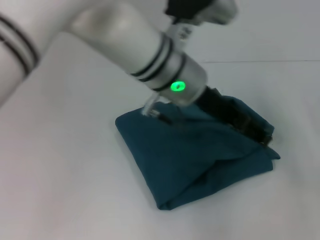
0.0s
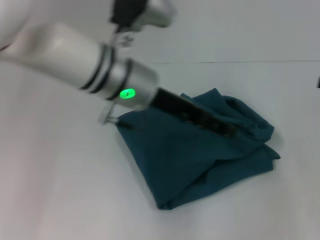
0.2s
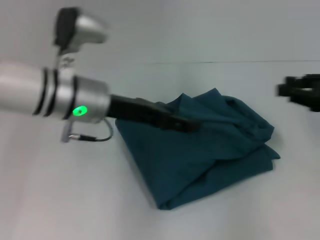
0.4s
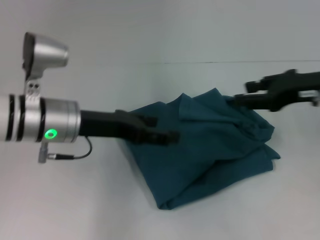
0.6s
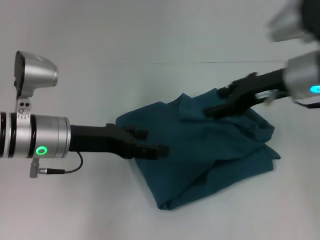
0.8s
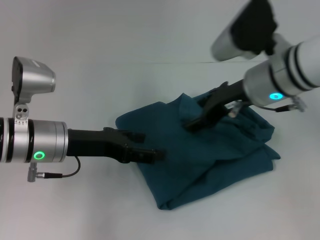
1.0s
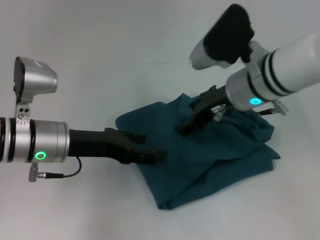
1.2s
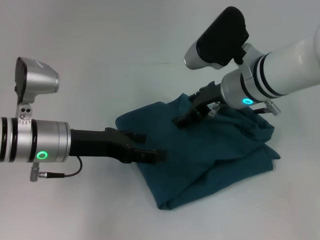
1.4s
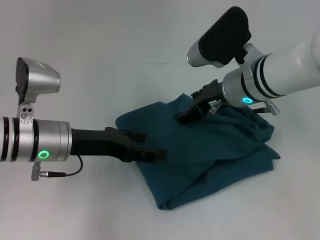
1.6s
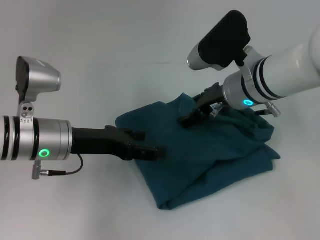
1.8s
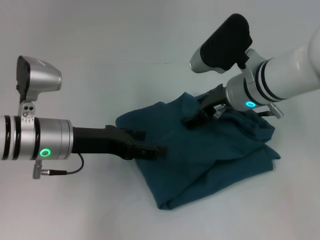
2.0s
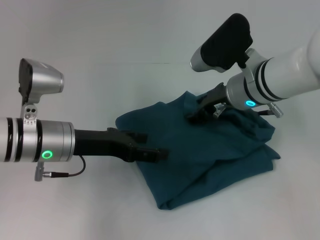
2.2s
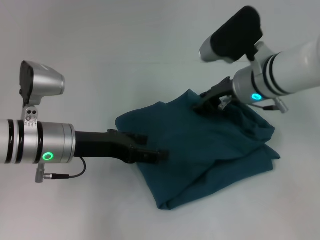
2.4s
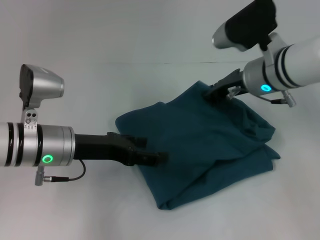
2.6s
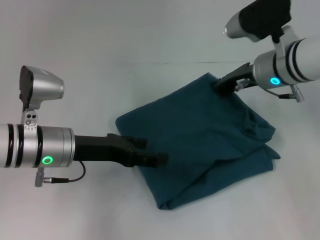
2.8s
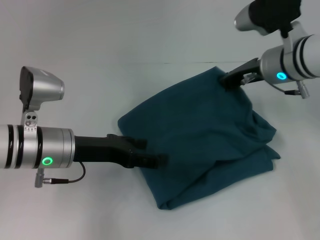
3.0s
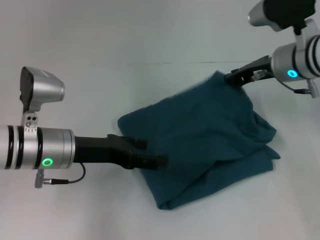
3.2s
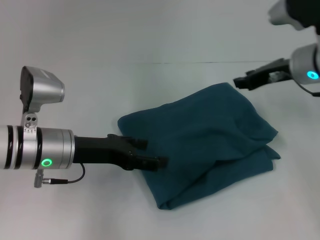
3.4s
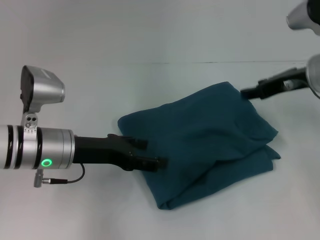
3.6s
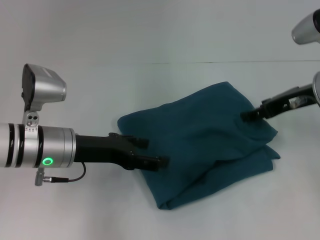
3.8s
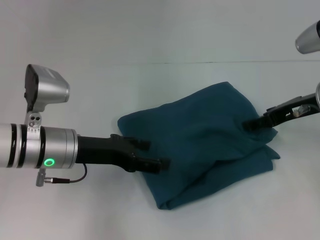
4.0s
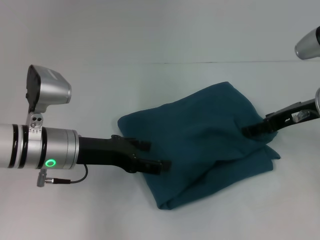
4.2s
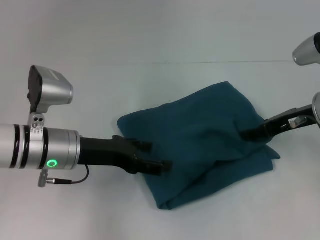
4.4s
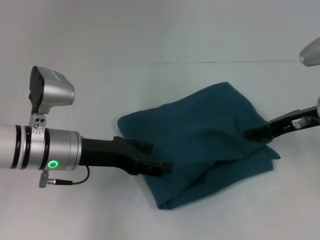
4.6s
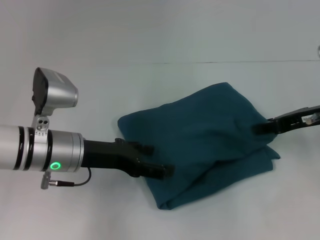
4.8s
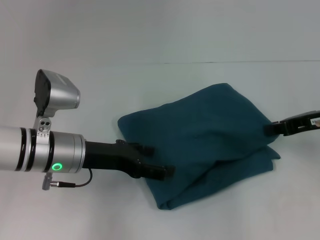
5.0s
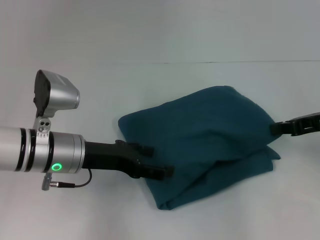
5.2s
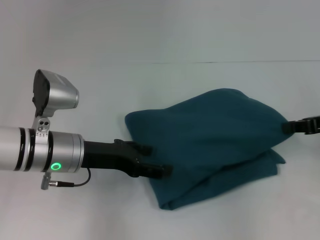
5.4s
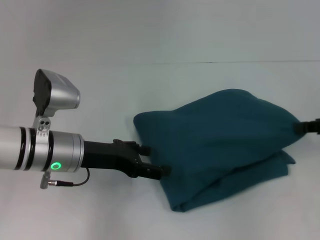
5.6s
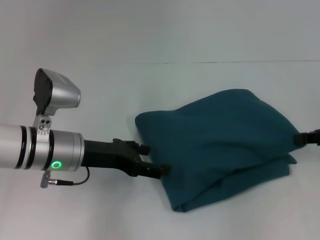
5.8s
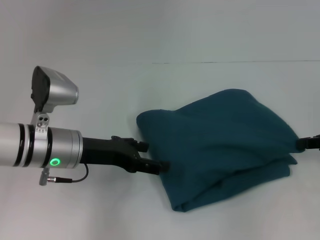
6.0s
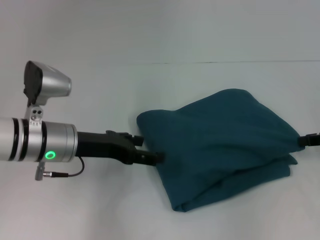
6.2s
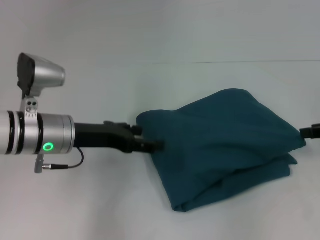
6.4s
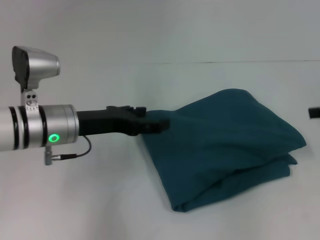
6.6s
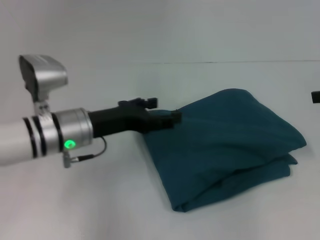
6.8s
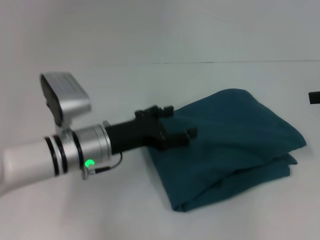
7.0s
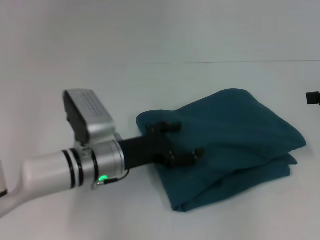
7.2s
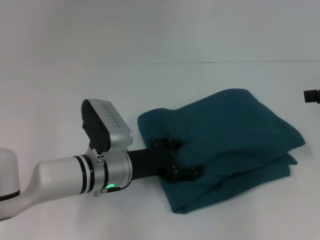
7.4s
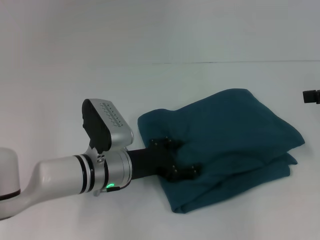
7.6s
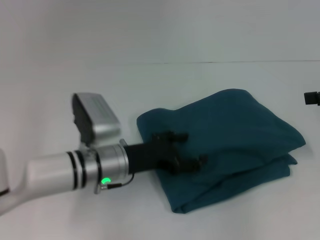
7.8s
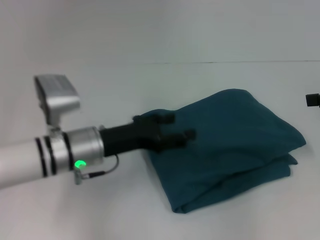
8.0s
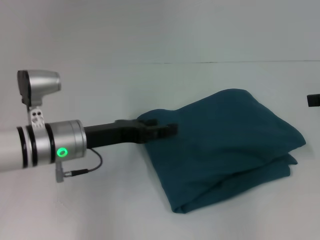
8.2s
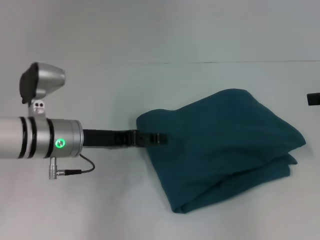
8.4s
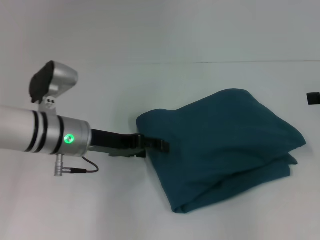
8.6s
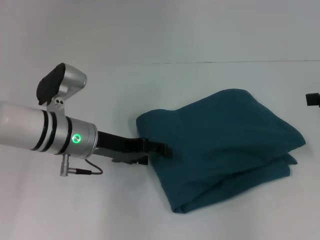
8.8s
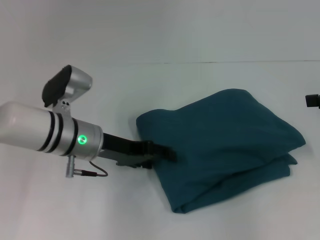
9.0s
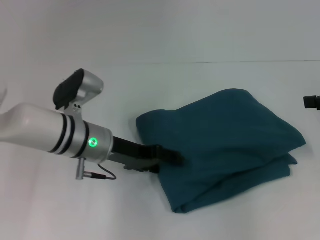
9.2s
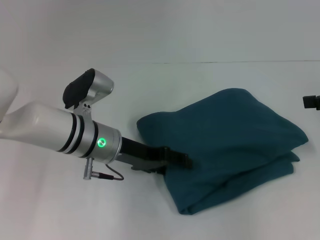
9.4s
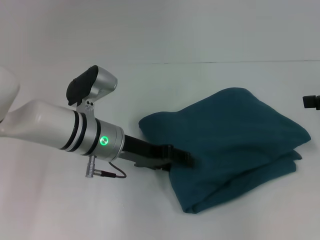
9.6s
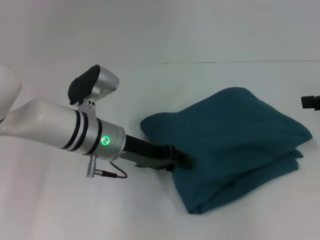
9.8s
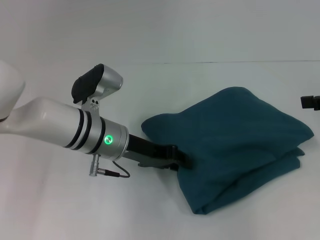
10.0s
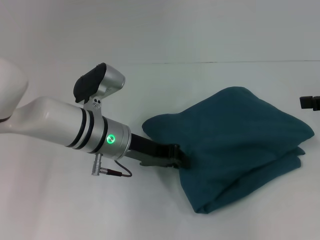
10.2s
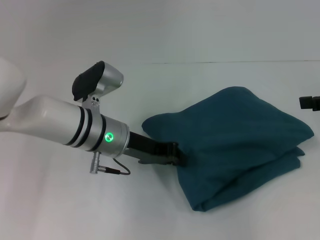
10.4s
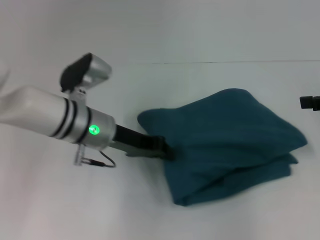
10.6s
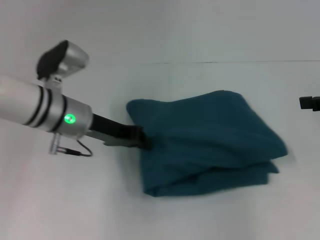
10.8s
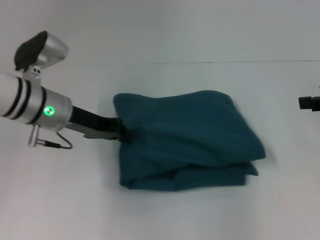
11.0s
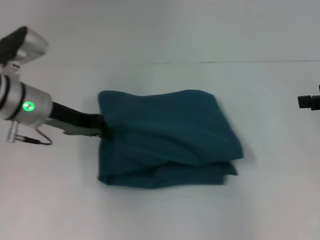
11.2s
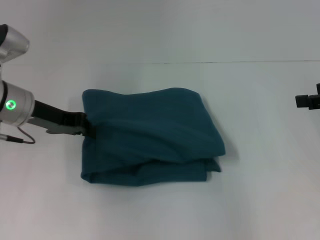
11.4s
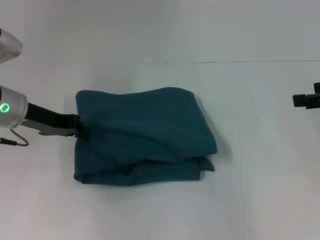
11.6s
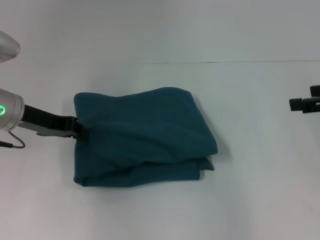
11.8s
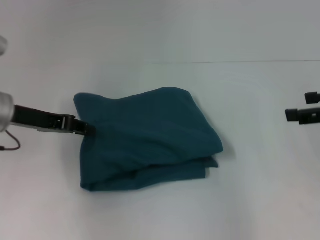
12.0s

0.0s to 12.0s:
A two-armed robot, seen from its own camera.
0.0s to 1.6s: The left gripper is displaced to the left and downward by some 20 cm. Meanwhile the right gripper moves to the left, about 25 cm, and opens.
1.6s to 3.0s: The right gripper travels to the right by roughly 5 cm, and closes.
3.0s to 4.4s: The right gripper goes approximately 10 cm to the right and backward, and opens up.
4.4s to 6.0s: The right gripper shifts some 10 cm to the right, and closes.
6.0s to 7.6s: The left gripper moves downward and to the right, roughly 10 cm, while the right gripper heads upward, covering some 10 cm, and opens its fingers.
7.6s to 9.0s: The left gripper shifts approximately 5 cm upward.
9.0s to 10.4s: The left gripper closes its fingers.
10.4s to 12.0s: The left gripper moves to the left, about 15 cm.

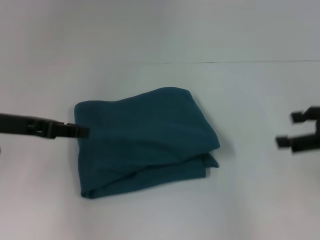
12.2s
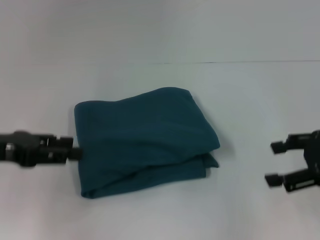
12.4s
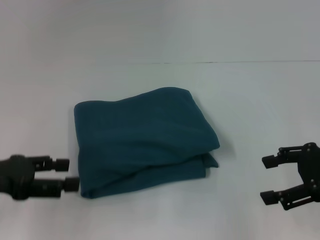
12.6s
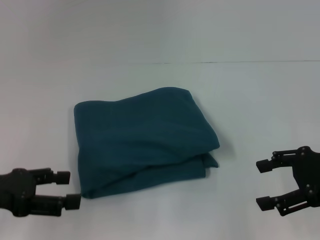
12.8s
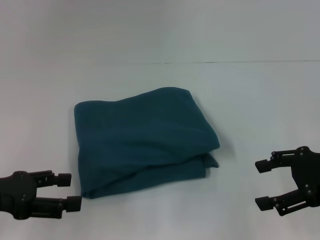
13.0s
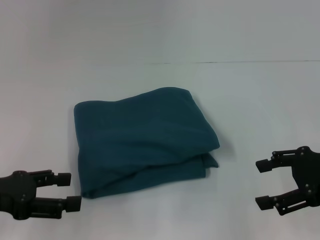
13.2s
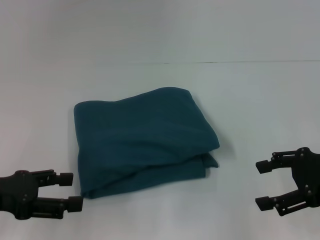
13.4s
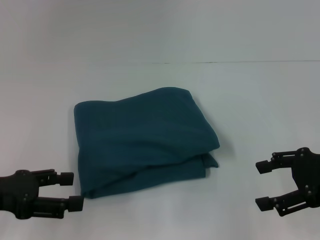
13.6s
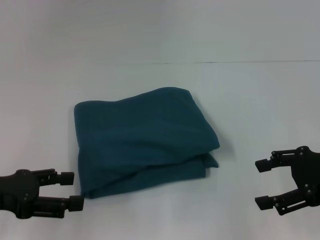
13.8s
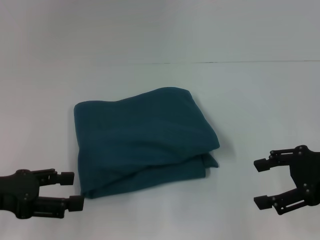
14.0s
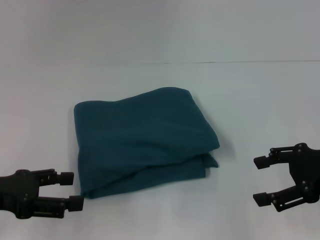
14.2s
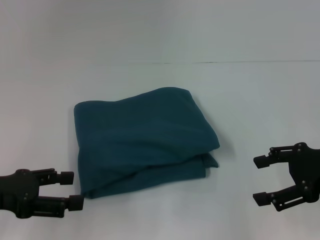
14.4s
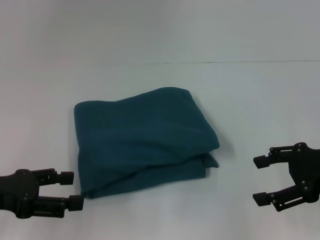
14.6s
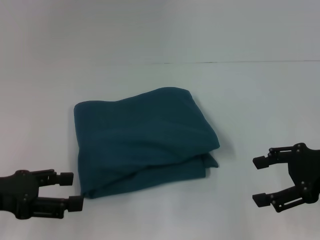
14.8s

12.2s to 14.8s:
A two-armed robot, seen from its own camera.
12.2s to 13.4s: The left gripper shifts some 10 cm backward, and opens up.
13.4s to 14.8s: Neither gripper changes place.

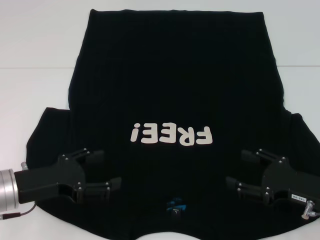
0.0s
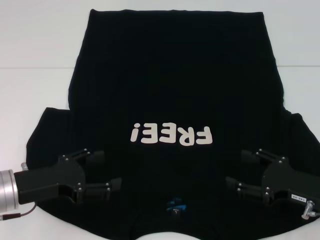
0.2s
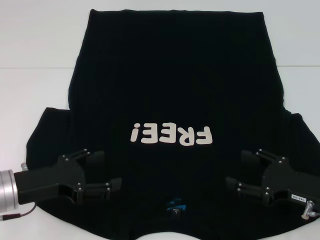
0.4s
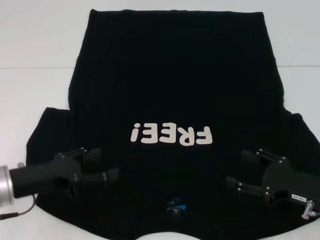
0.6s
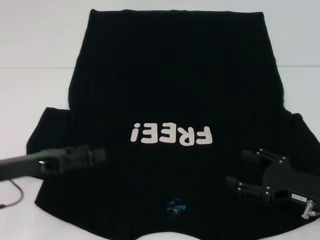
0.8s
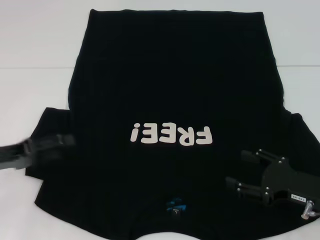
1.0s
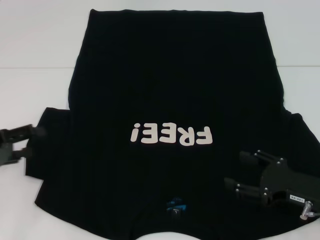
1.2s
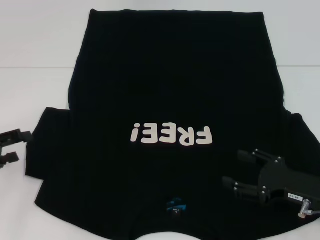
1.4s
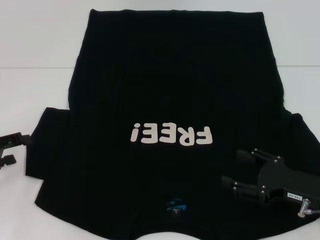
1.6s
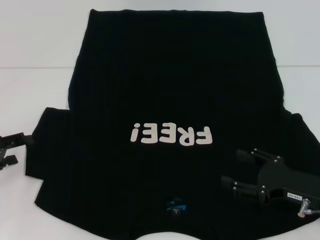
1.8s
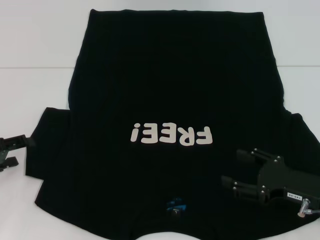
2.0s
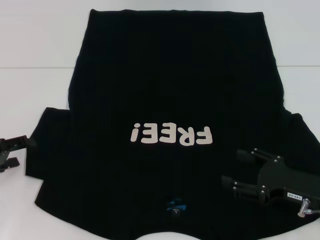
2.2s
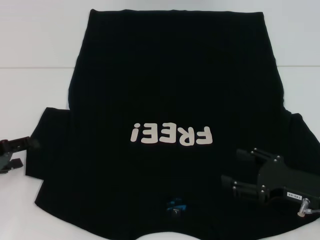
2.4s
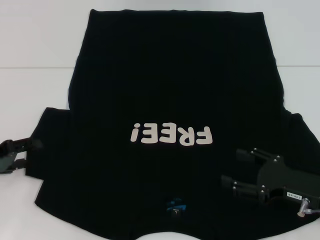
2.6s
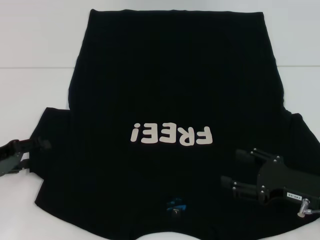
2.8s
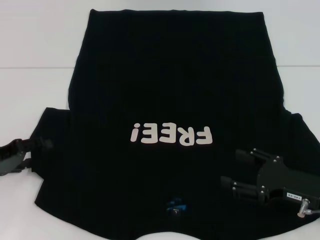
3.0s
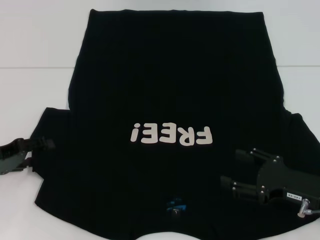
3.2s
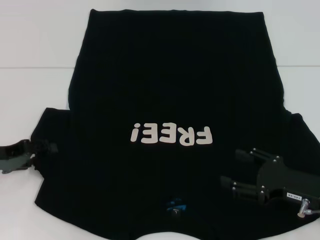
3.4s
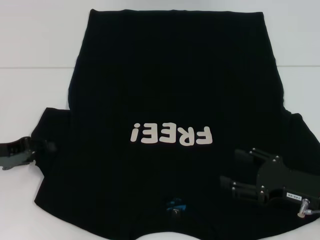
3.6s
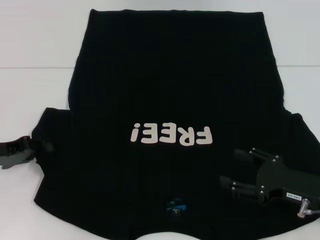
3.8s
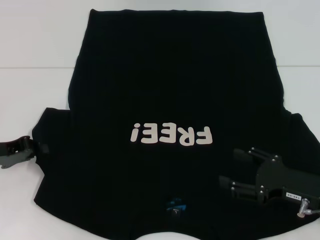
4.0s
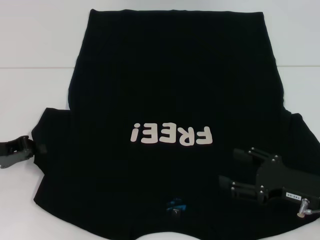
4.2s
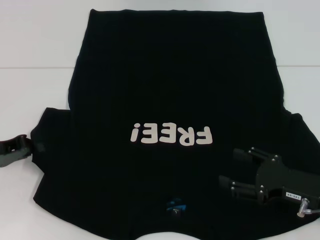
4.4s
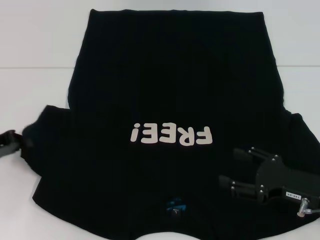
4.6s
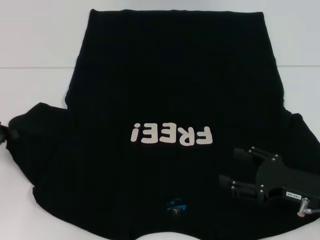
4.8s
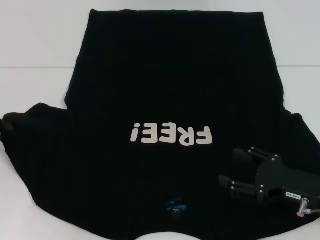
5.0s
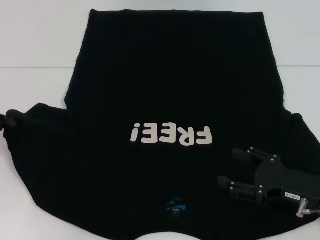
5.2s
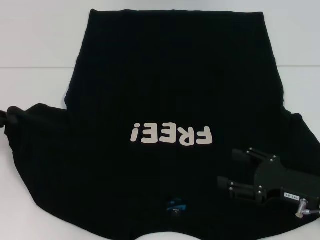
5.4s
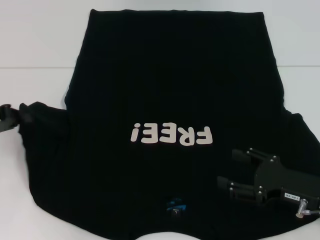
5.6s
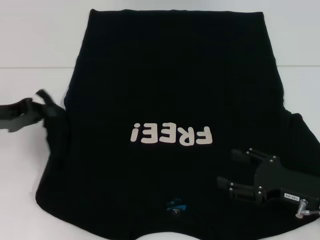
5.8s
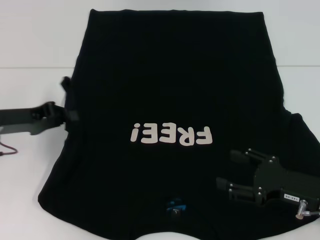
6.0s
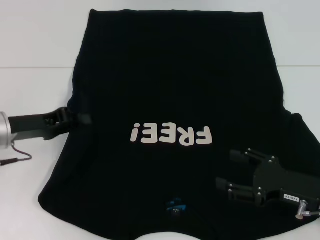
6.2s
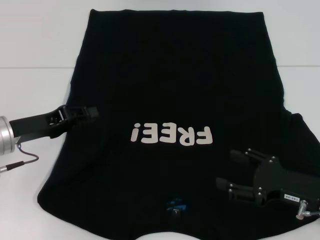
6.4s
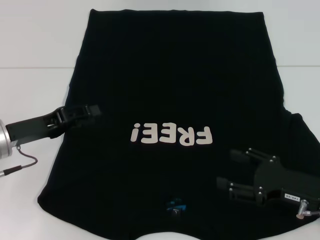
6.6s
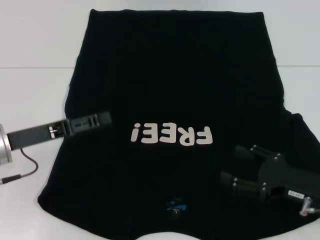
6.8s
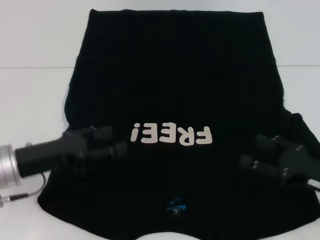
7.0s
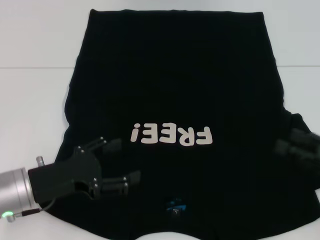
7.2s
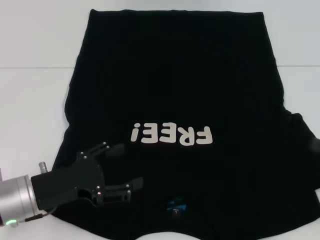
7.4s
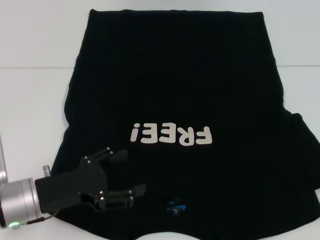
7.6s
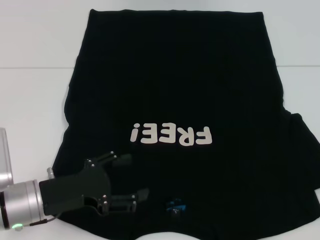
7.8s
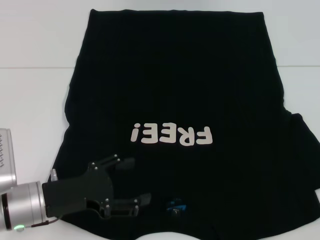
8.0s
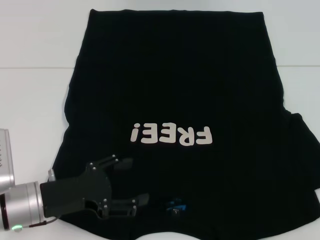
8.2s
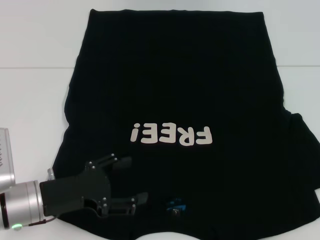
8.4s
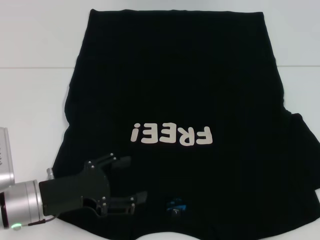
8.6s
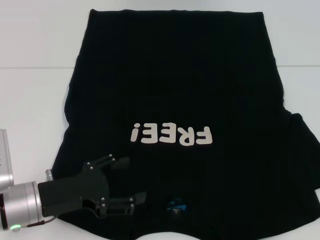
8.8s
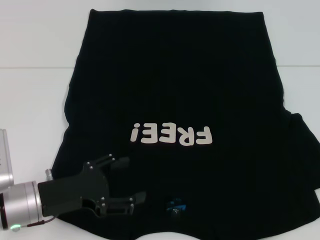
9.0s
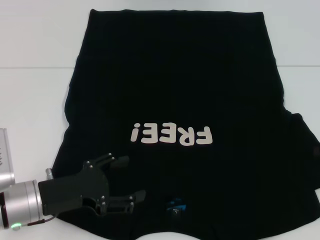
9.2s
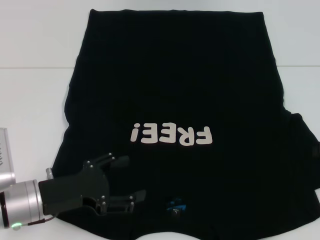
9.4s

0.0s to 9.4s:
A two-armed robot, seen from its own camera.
Step, 0.0s to 7.4s: Fold the bottom left sleeve with your left hand.
0.0s to 1.6s: The left gripper goes approximately 10 cm to the left.
1.6s to 3.2s: The grippers move only a little.
3.2s to 4.8s: The left gripper closes.
4.8s to 6.2s: The left gripper travels to the right by roughly 10 cm.
6.2s to 7.8s: The left gripper shifts some 10 cm backward, to the right and downward, and opens, while the right gripper moves to the right and upward, some 20 cm.
